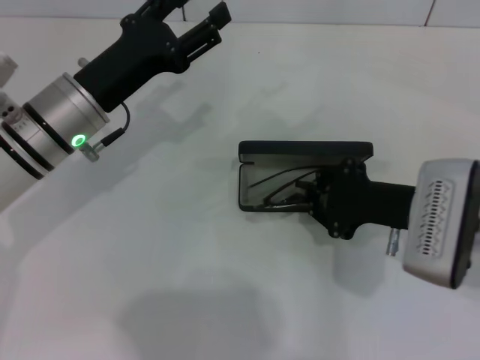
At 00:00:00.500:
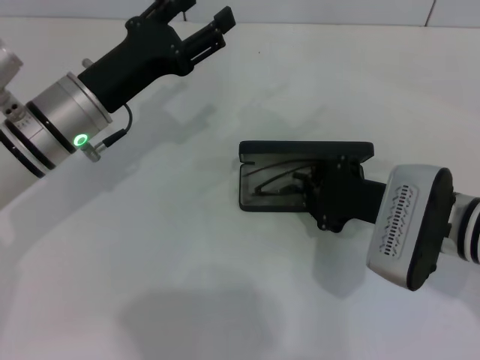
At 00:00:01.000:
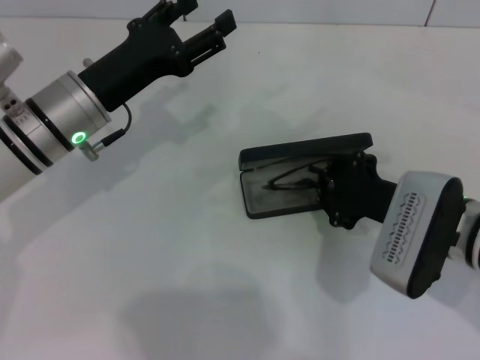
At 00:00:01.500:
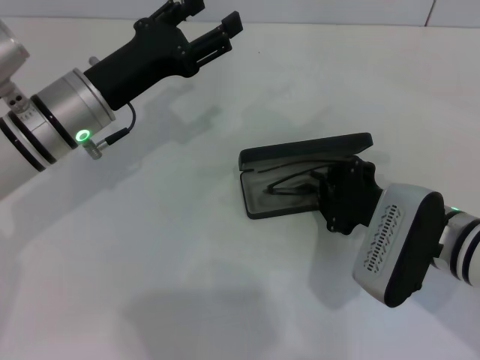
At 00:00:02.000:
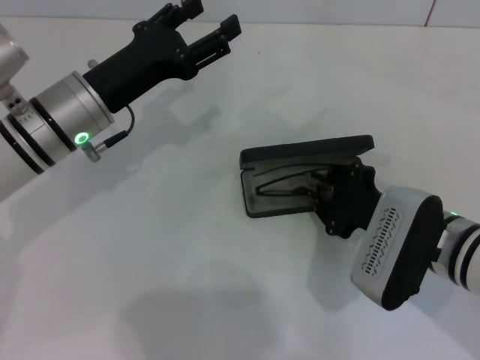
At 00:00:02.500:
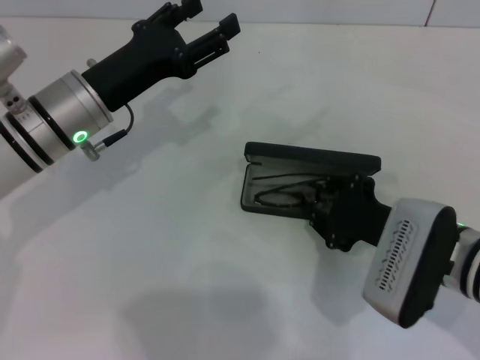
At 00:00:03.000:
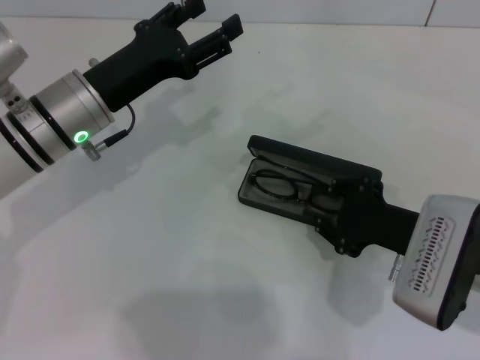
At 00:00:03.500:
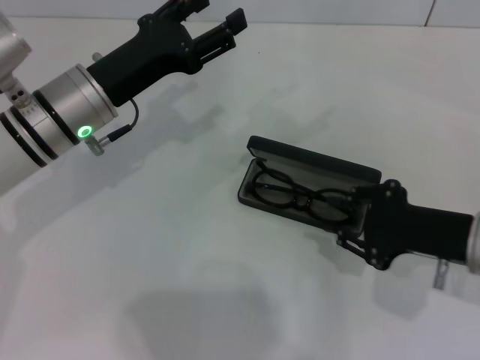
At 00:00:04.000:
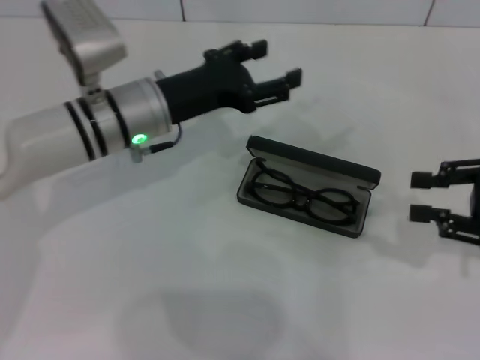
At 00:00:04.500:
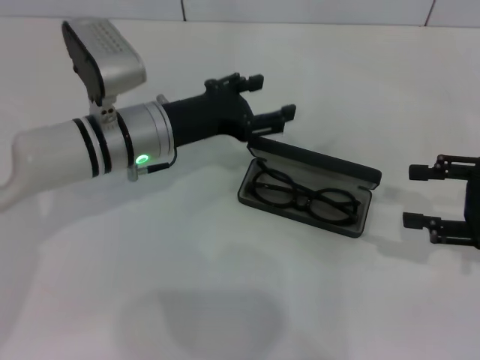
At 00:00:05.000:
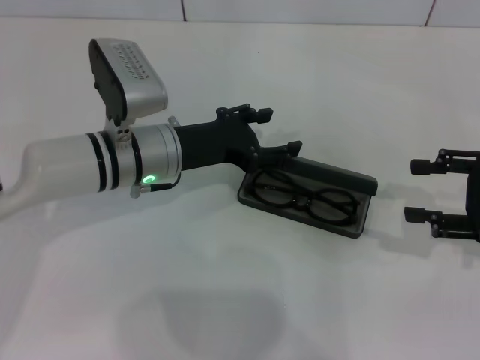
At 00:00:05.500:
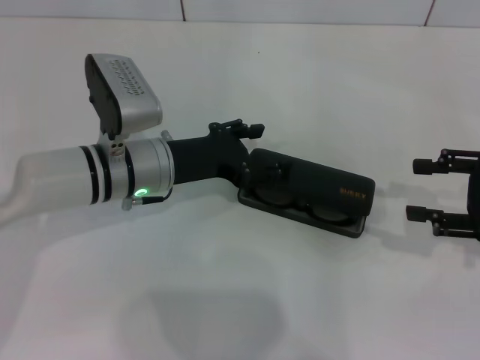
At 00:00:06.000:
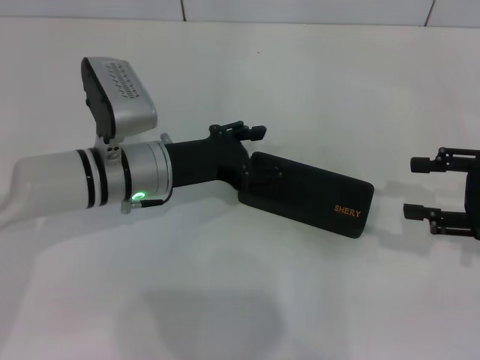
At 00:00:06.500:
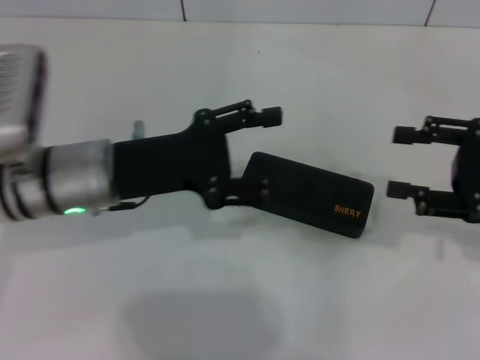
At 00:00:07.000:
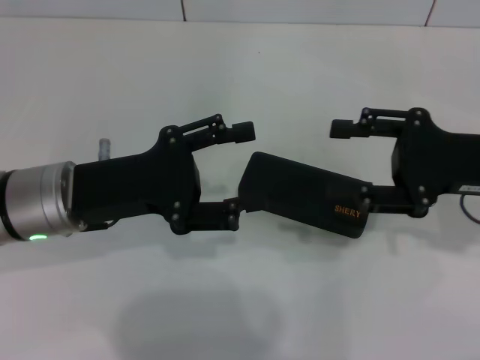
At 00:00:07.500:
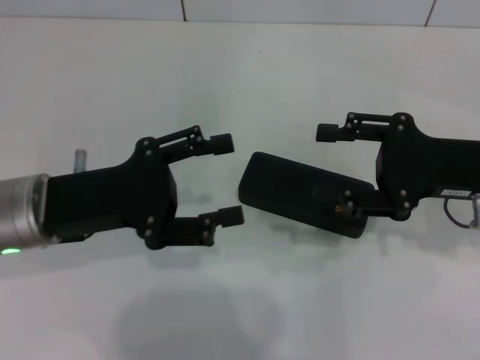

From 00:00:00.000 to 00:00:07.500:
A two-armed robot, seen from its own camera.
Step, from 00:00:00.000 to 00:00:03.000: Put the glasses into the case with your right hand.
Step, from 00:00:03.500 to 00:00:05.500: Close the glasses case with your left hand.
From 00:00:00.000 to 00:00:02.000: The grippers make only small movements.
From 00:00:02.000 to 00:00:04.000: The left gripper changes place by approximately 5 cm. The right gripper goes roughly 15 cm to the right, and opens up.
From 00:00:04.000 to 00:00:05.500: The grippers stay close to where they were, moving slightly.
From 00:00:05.500 to 00:00:07.500: The left gripper goes some 10 cm backward and to the left; the right gripper heads to the left, covering approximately 10 cm.
